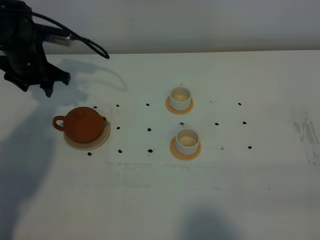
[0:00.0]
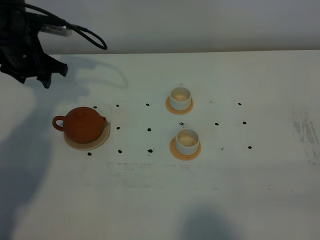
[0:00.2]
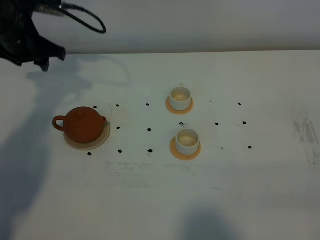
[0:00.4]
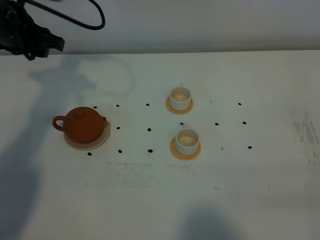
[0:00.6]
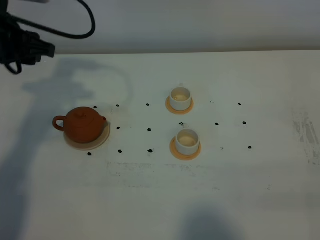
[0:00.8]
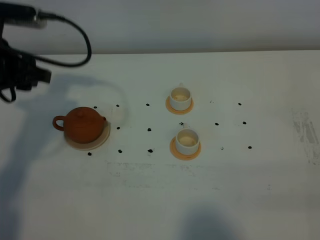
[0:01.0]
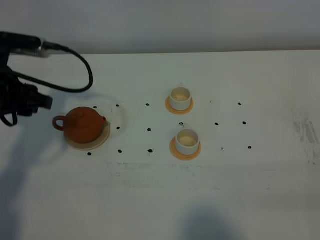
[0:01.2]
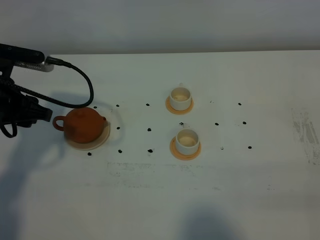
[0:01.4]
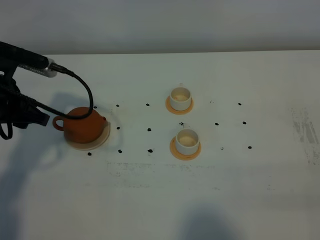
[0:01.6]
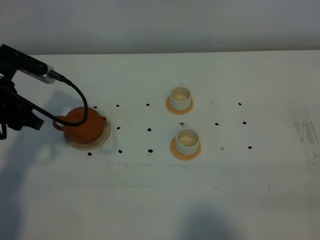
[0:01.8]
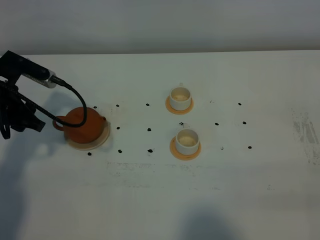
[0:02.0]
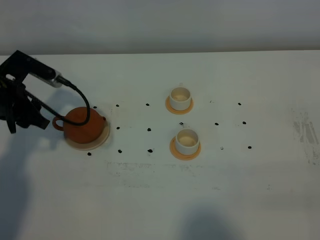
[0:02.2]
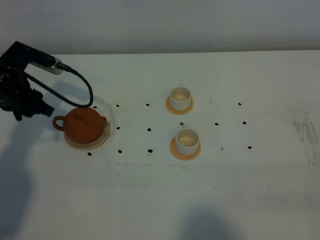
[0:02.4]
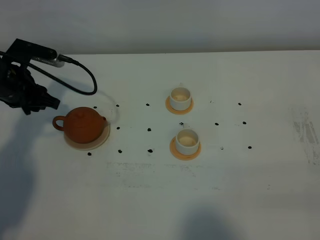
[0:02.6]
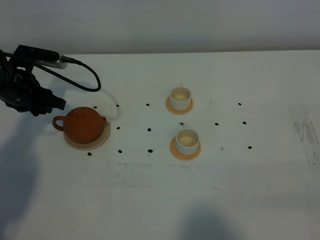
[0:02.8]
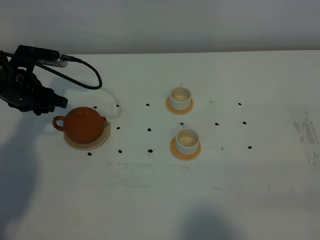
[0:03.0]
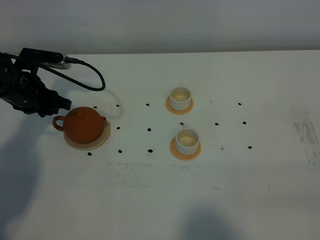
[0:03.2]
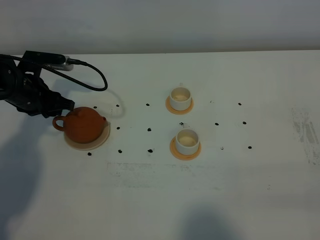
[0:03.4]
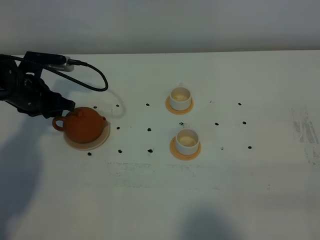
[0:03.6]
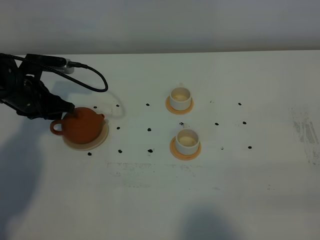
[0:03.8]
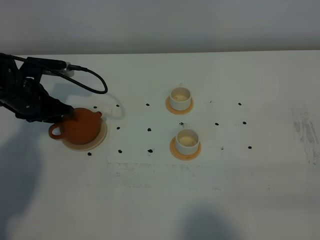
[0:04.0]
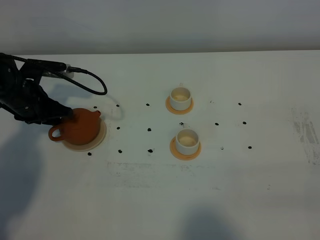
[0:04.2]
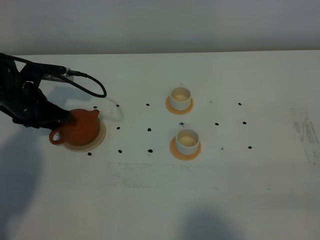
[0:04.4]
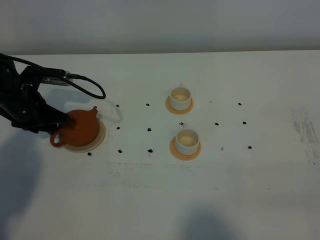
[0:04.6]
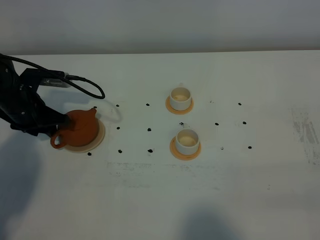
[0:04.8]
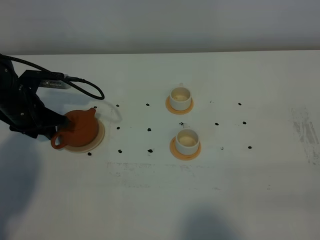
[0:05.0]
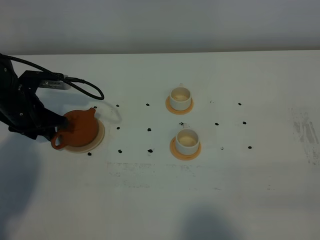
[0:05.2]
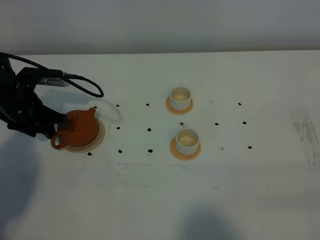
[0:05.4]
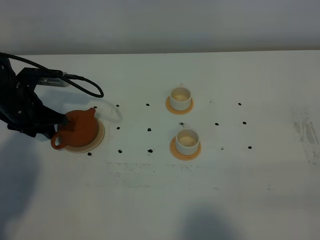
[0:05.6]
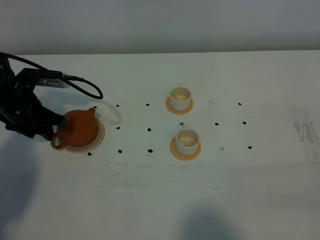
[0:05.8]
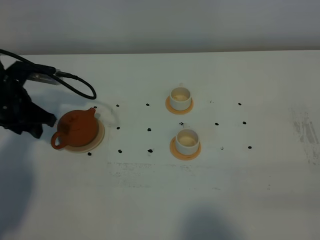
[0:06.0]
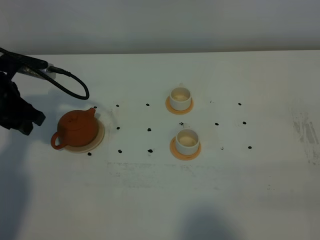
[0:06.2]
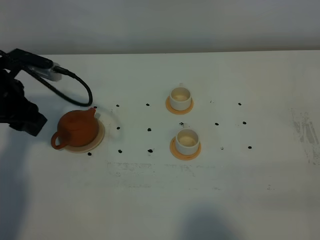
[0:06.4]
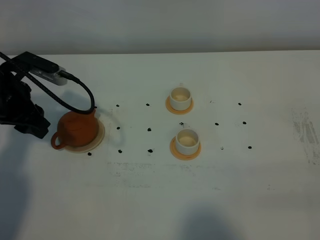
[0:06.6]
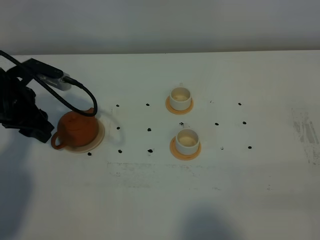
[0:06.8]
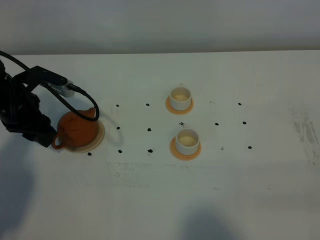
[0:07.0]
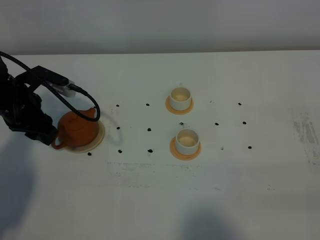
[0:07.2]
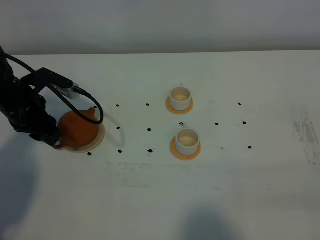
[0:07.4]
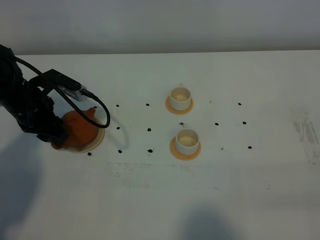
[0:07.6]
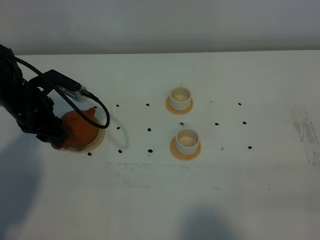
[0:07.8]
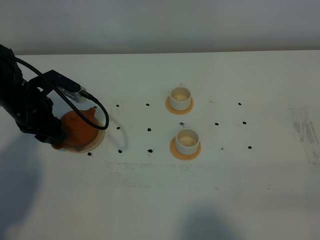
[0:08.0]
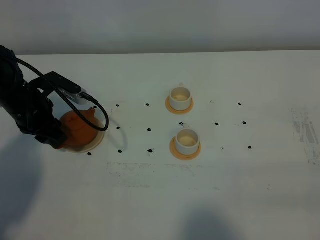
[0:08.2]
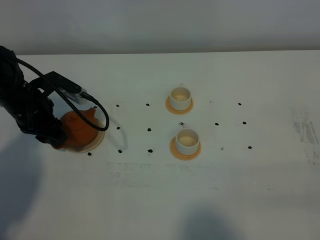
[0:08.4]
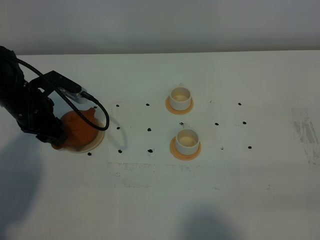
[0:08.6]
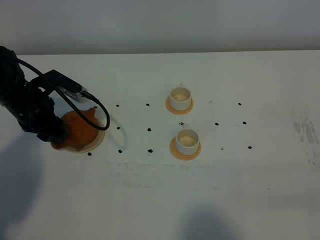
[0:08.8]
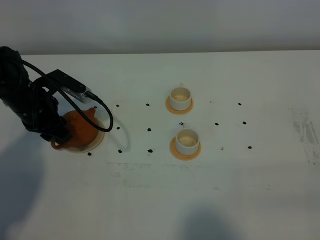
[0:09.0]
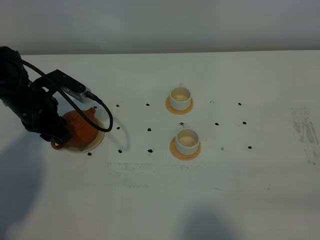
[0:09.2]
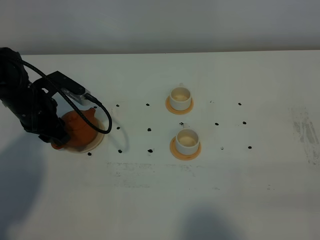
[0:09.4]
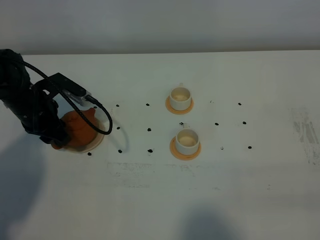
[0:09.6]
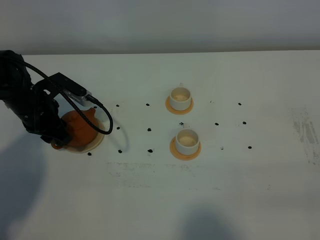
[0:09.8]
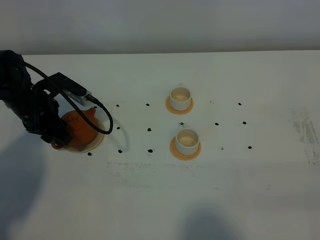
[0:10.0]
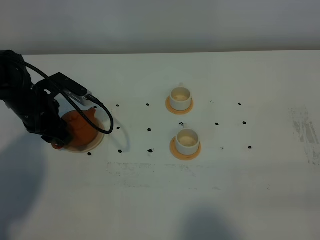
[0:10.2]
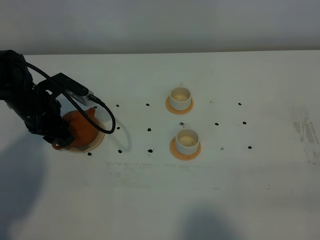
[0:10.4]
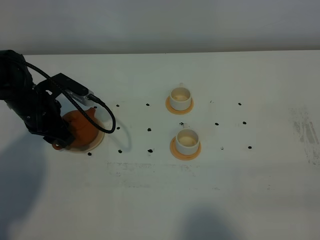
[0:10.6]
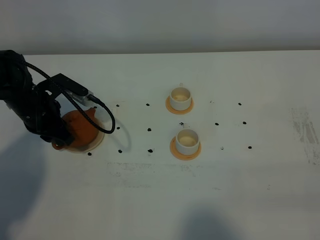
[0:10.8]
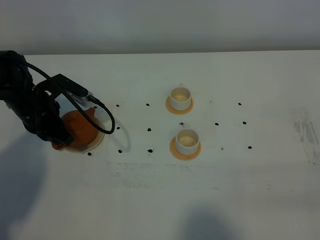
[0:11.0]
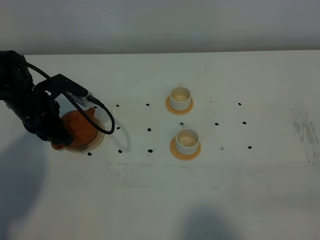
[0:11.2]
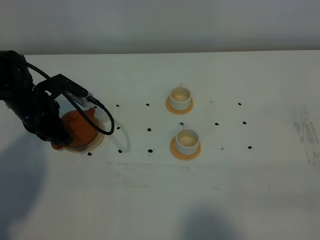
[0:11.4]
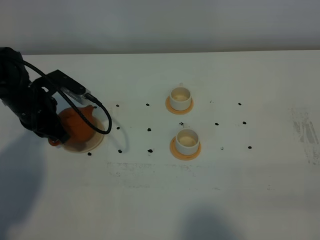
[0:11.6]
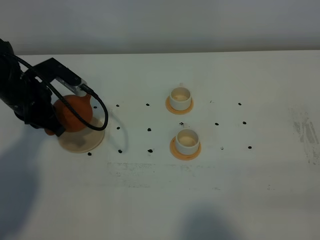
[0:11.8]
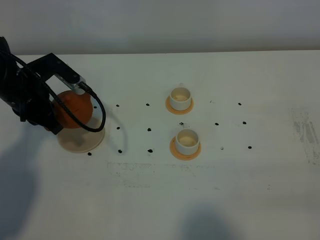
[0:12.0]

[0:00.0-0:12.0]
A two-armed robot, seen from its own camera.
Task of the whole recording: grasp the brown teapot and pour the tea into the two white teacups one by one, put the brown teapot back in its original place.
Step, 0:00.0 to 0:11.8: Pick up the teapot with the left gripper.
0:00.0 to 0:01.6: The left gripper goes approximately 15 cm backward.
0:01.6 to 0:03.0: The left gripper shifts about 10 cm forward and downward.
0:03.0 to 0:04.4: There are only small adjustments of the grippers.
0:04.4 to 0:06.0: The left gripper shifts by roughly 5 cm.
0:07.6 to 0:09.0: Both grippers stay put.
0:09.0 to 0:10.4: Neither gripper changes place.
0:10.4 to 0:12.0: The left gripper heads upward, covering approximately 5 cm, and closes up.

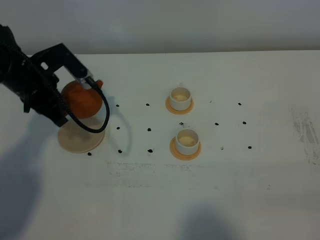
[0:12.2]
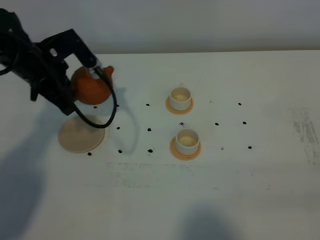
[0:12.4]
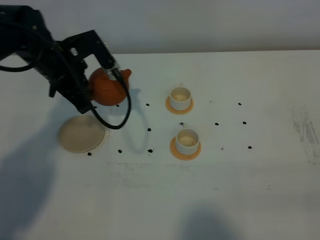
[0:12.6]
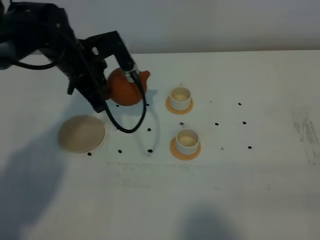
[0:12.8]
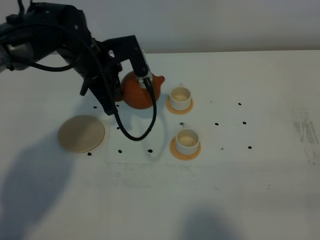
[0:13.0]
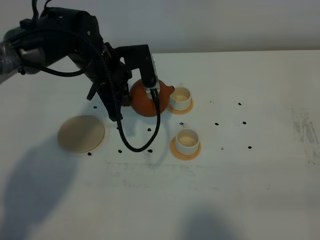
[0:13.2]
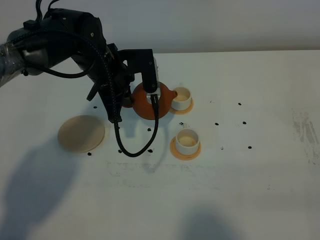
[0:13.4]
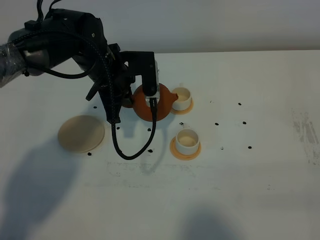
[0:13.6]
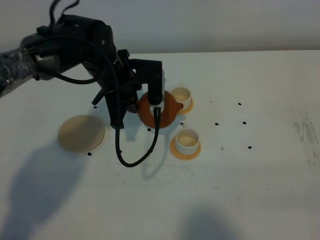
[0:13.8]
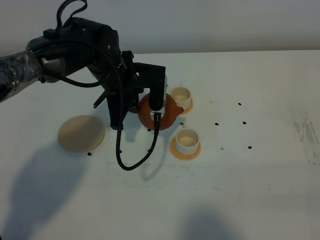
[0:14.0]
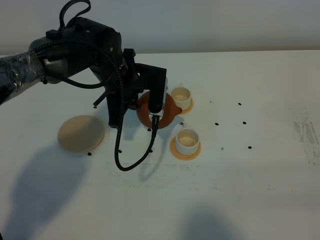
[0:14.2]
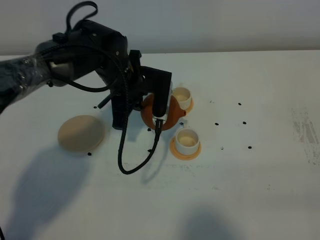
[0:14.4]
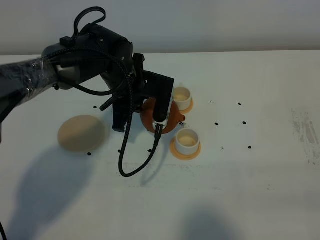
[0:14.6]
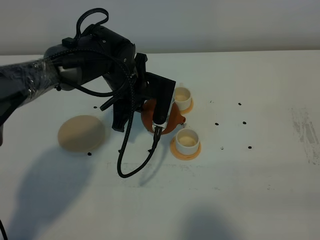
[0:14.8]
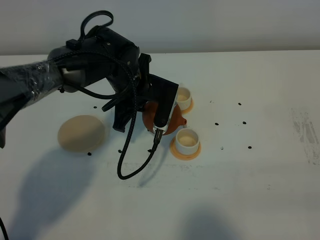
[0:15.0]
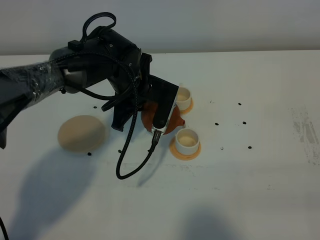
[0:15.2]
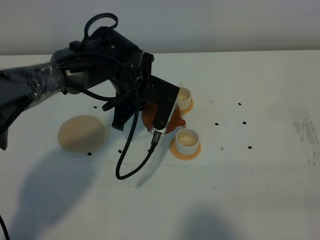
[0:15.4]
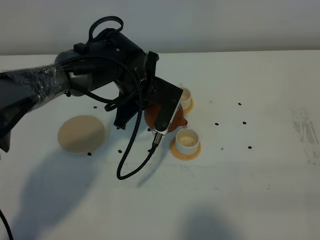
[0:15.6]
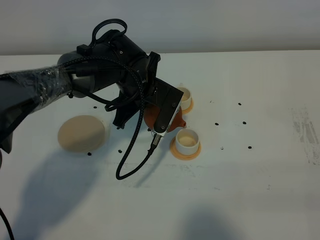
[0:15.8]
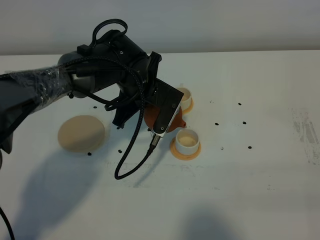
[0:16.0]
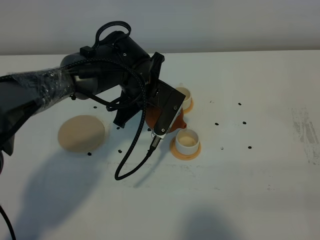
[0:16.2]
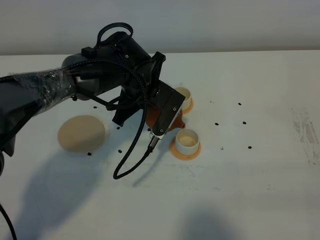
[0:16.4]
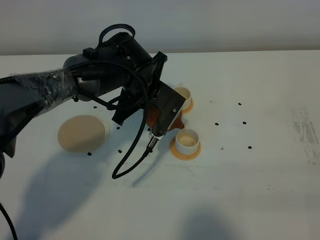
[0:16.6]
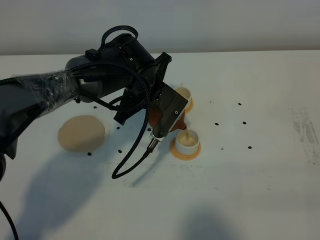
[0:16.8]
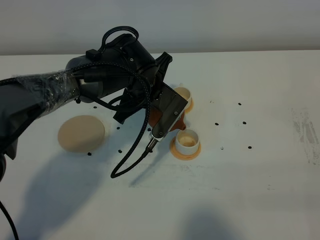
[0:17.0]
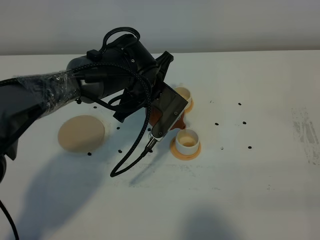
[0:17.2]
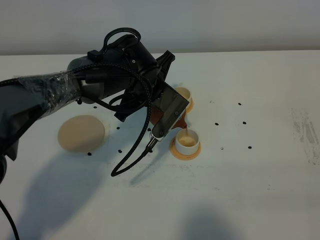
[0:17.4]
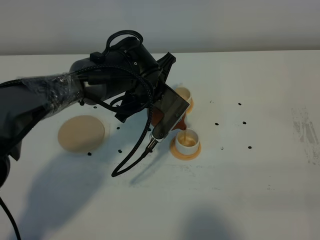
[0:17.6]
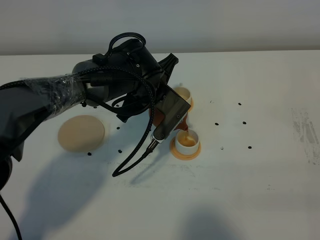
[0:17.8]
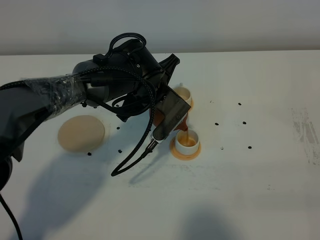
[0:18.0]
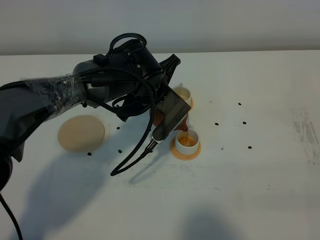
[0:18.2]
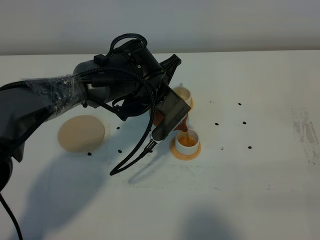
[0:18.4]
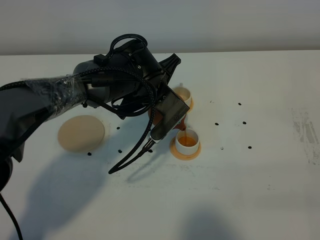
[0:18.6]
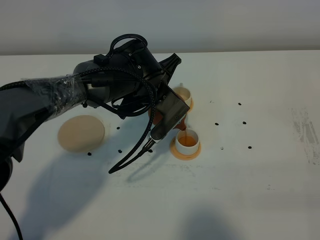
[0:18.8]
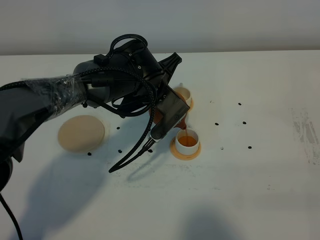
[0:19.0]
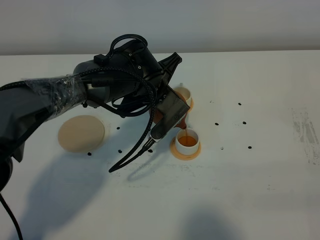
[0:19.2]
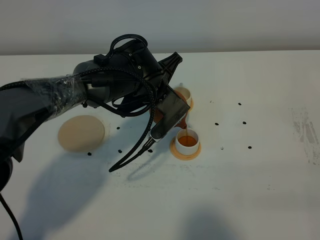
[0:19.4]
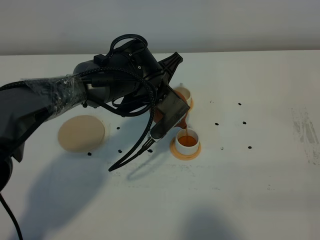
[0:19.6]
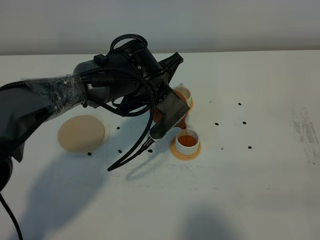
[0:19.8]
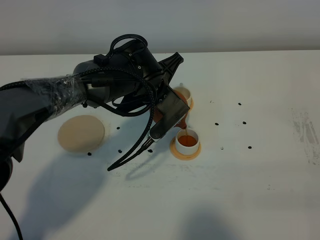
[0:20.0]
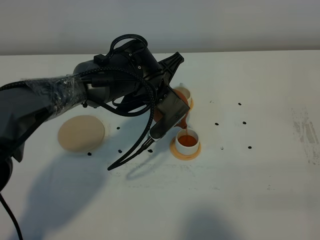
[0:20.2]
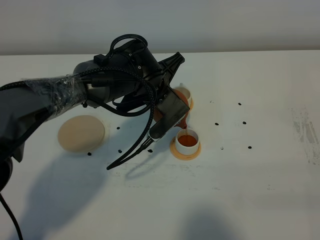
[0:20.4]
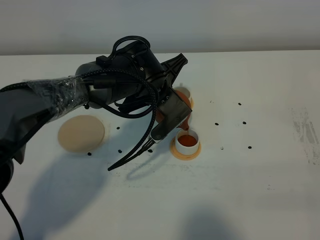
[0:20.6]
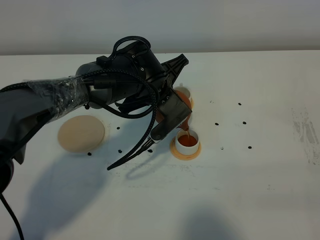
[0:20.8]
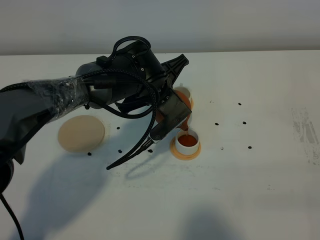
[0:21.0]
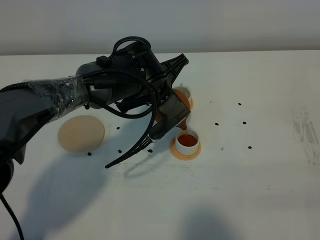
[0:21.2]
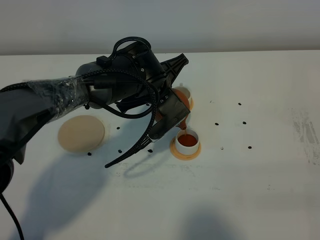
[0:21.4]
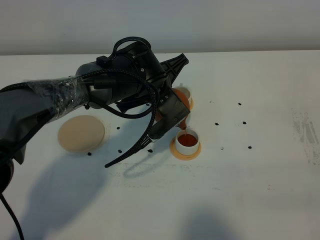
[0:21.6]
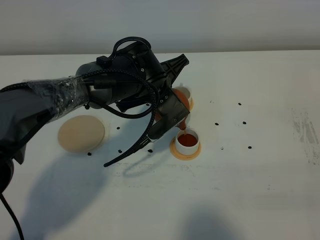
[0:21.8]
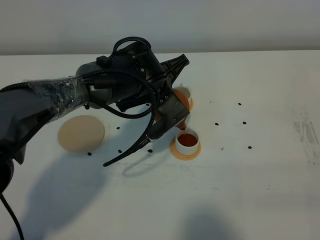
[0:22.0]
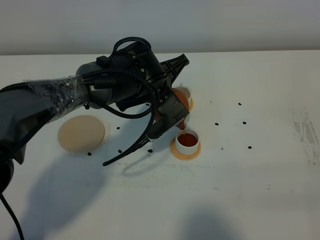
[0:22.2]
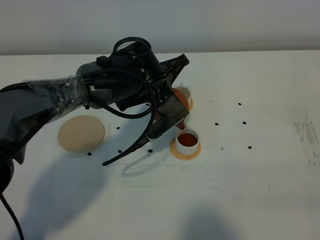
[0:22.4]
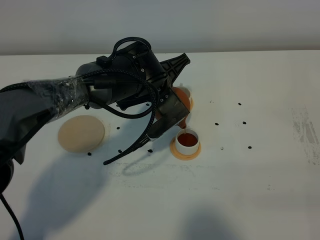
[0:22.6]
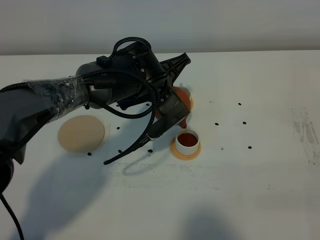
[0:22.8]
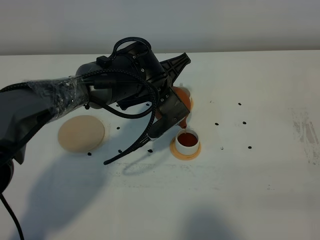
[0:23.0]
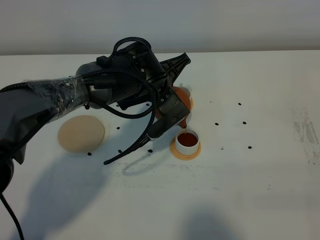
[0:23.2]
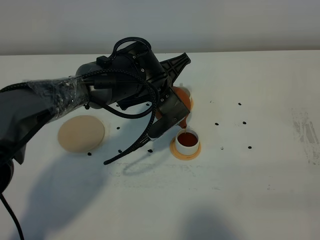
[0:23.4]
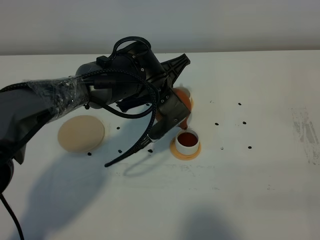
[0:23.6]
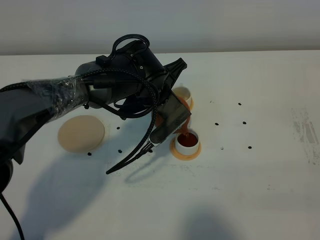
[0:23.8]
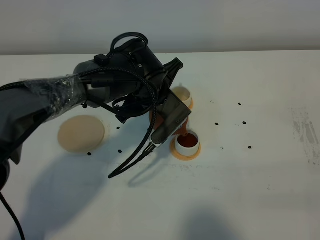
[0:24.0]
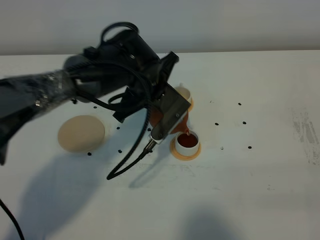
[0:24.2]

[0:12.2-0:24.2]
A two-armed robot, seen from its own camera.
Task of the whole recording: grasp the brown teapot and pour the tea into the two white teacups one by one, put the brown teapot back in its original place.
0:12.2 to 0:13.8: The left gripper travels to the right by roughly 15 cm.
0:15.2 to 0:16.6: The grippers make only small movements.
0:16.6 to 0:18.2: The grippers move only a little.
0:18.2 to 0:19.8: Neither gripper changes place.
0:19.8 to 0:21.2: The grippers make only small movements.
0:21.2 to 0:22.6: Both grippers stay about where they are.
0:22.6 to 0:24.2: The grippers make only small movements.
